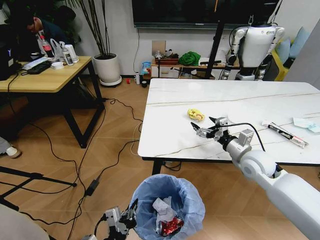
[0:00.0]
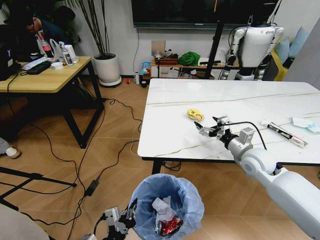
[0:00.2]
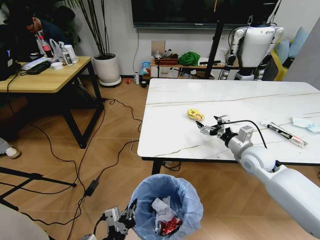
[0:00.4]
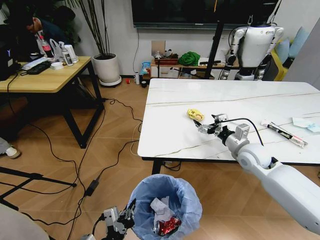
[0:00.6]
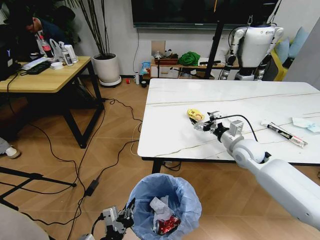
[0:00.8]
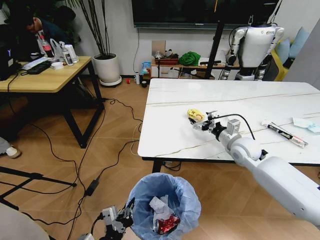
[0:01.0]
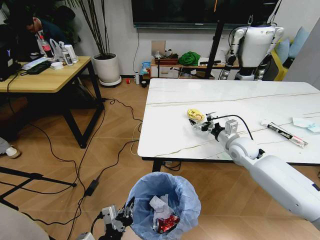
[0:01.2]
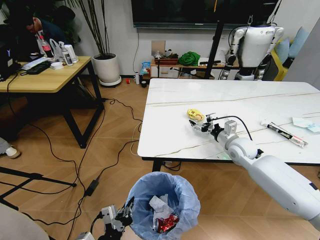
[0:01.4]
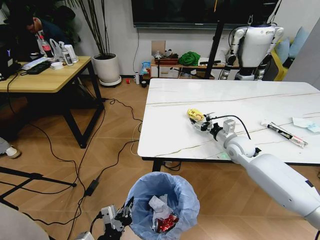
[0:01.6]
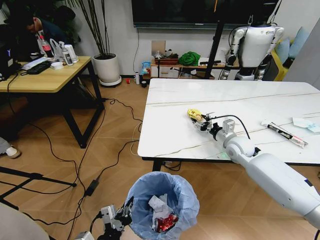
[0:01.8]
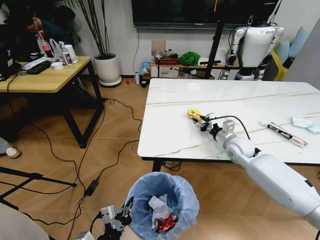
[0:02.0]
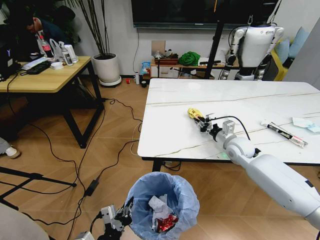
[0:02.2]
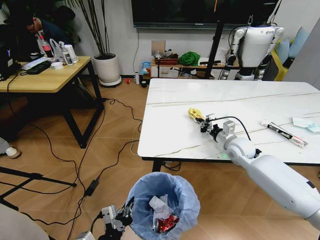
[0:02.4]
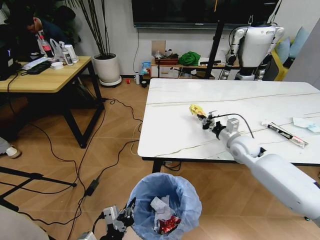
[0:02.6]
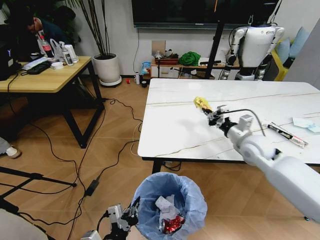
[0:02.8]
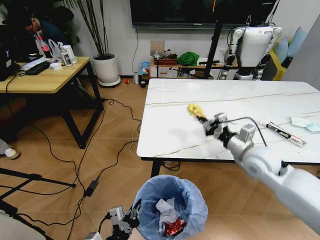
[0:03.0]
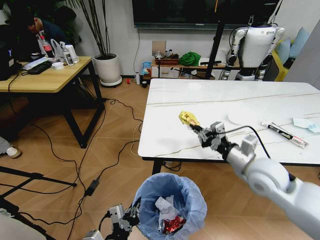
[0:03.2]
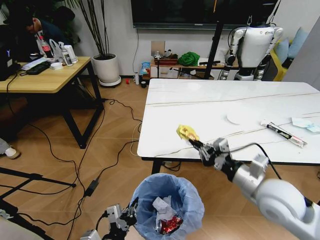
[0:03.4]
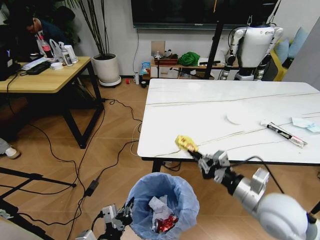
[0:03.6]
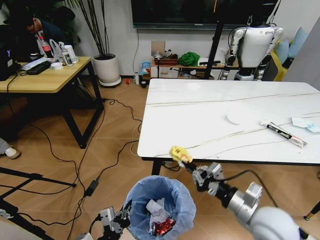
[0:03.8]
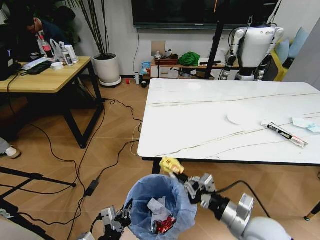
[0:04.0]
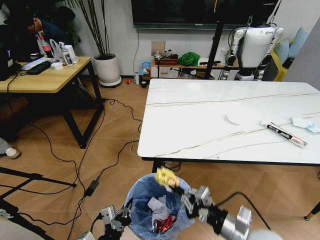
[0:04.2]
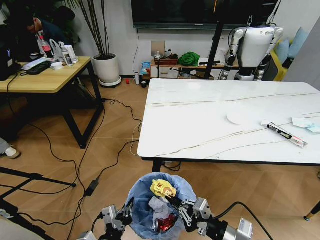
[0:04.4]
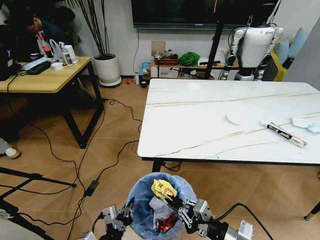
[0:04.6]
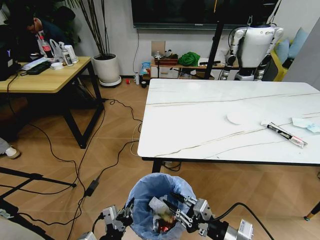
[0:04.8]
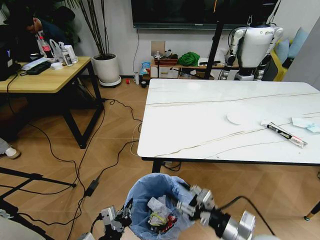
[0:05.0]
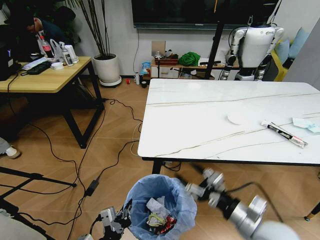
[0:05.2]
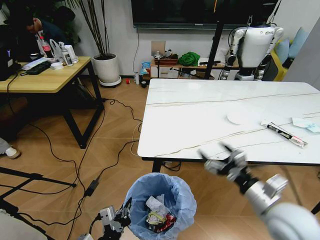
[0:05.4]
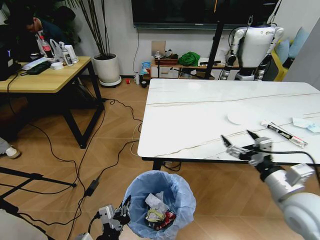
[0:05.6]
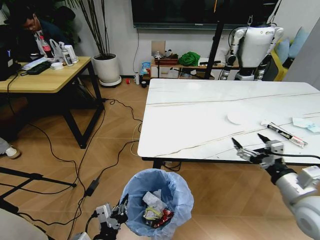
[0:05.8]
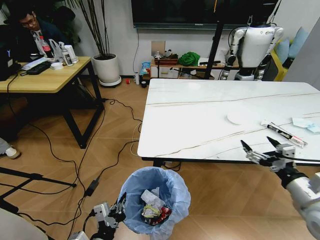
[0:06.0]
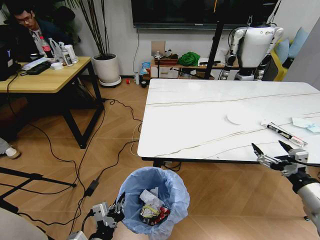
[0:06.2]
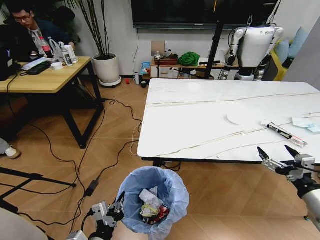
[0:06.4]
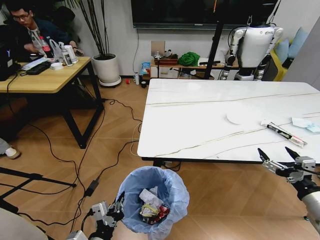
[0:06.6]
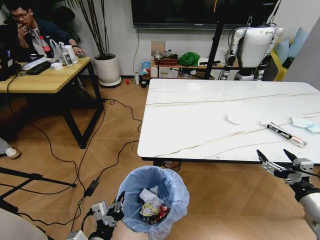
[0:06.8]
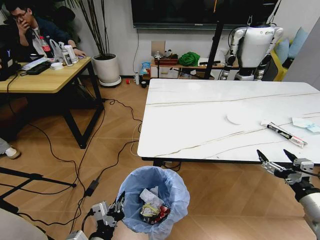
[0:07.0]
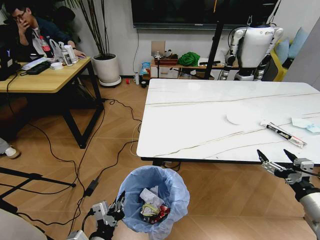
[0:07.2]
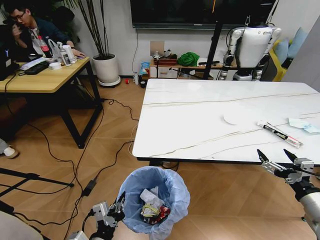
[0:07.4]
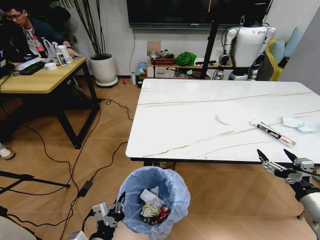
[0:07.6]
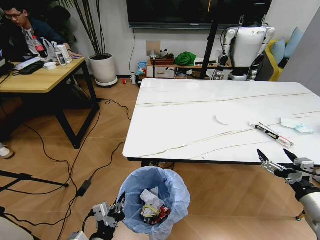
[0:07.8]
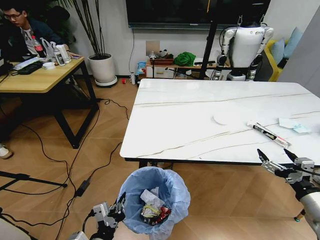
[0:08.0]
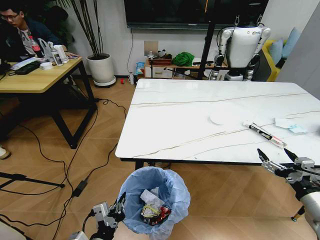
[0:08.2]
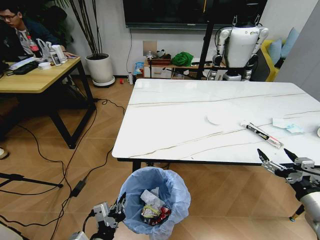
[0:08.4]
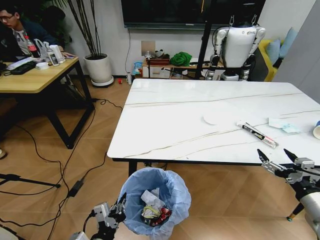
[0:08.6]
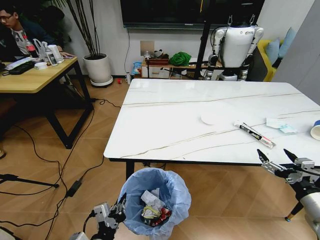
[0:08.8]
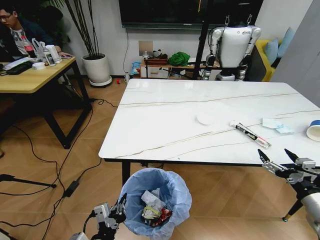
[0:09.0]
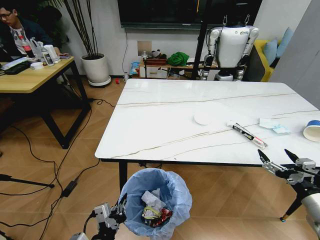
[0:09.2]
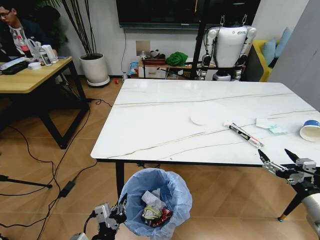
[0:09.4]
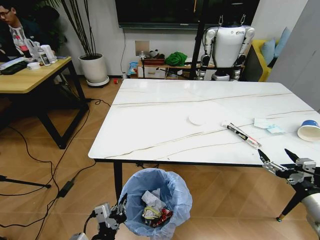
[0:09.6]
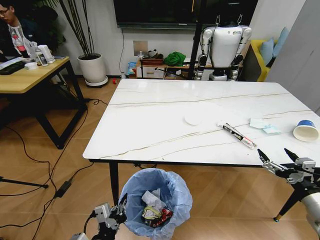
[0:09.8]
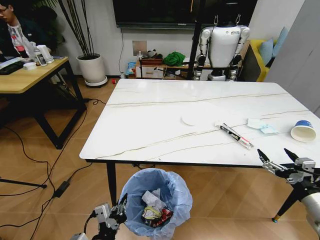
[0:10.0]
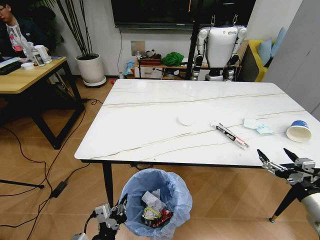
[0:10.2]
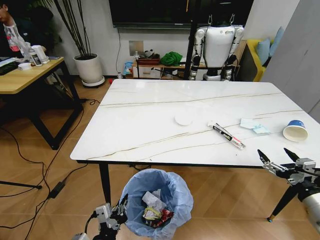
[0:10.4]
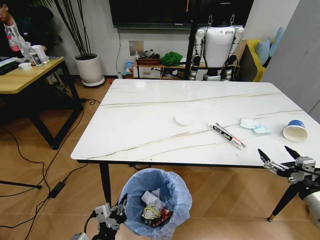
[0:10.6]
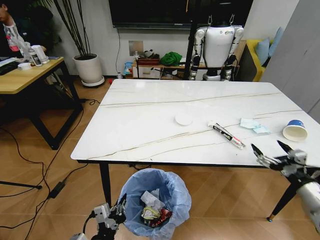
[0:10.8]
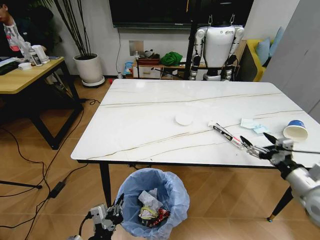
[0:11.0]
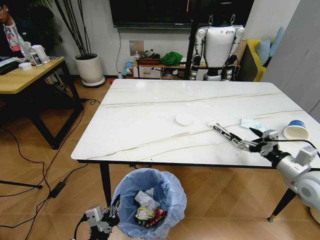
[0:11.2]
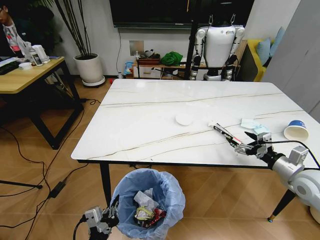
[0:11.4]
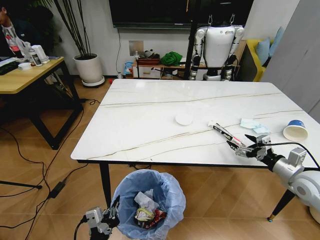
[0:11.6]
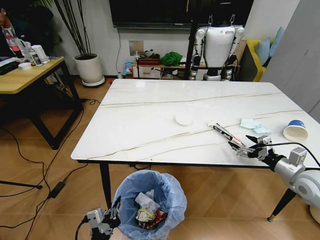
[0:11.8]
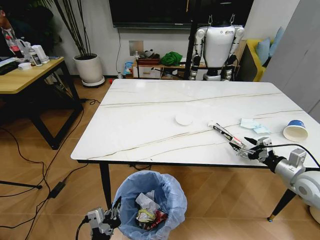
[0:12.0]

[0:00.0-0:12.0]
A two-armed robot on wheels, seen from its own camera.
Task of the whole recording: Pick up the trash bin and place the trash from the table into it.
0:00.0 to 0:01.6: The right gripper travels forward by roughly 10 cm.
0:01.6 to 0:03.0: The right gripper moves backward and upward, about 10 cm, and closes its fingers.
0:03.0 to 0:04.4: The right gripper heads backward, covering roughly 25 cm.
0:04.4 to 0:06.0: The right gripper travels to the right and upward by approximately 15 cm, and opens up.
0:06.0 to 0:07.6: The right gripper changes place by about 5 cm.
0:10.4 to 0:12.0: The right gripper travels forward by roughly 15 cm.

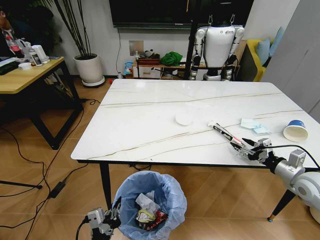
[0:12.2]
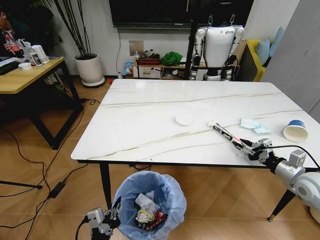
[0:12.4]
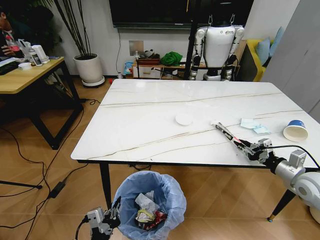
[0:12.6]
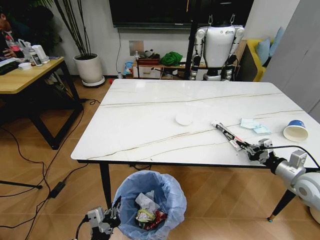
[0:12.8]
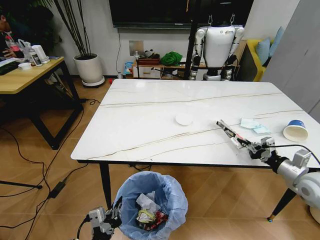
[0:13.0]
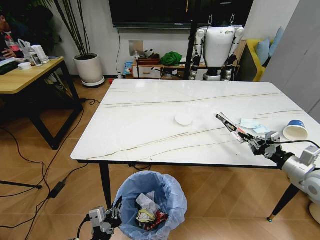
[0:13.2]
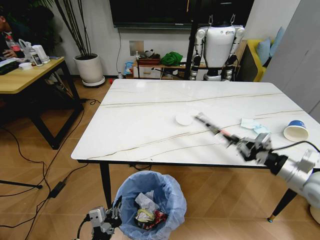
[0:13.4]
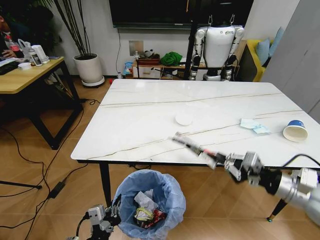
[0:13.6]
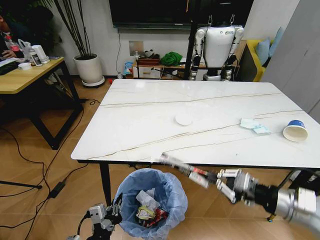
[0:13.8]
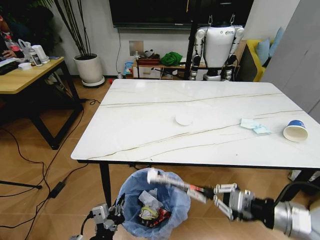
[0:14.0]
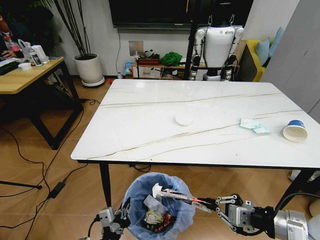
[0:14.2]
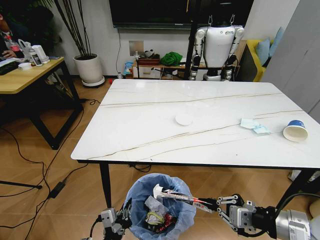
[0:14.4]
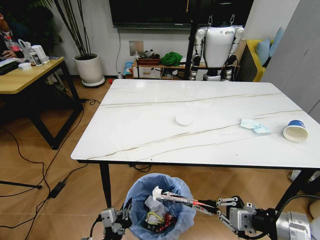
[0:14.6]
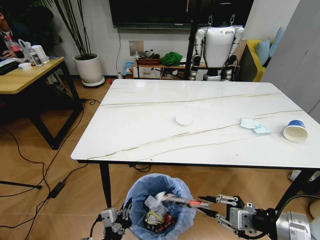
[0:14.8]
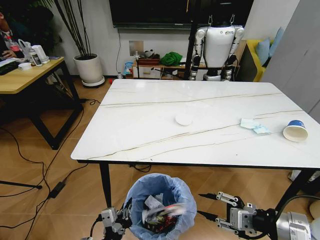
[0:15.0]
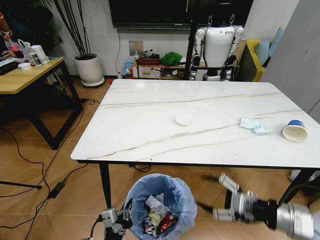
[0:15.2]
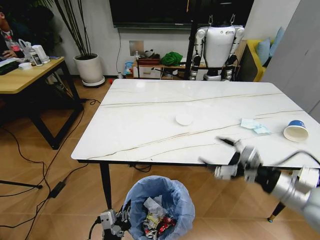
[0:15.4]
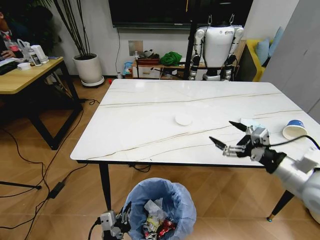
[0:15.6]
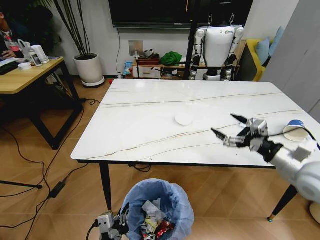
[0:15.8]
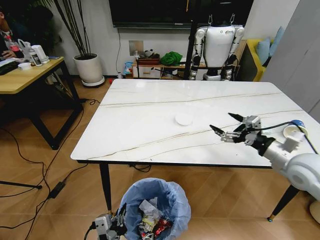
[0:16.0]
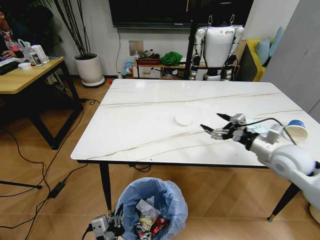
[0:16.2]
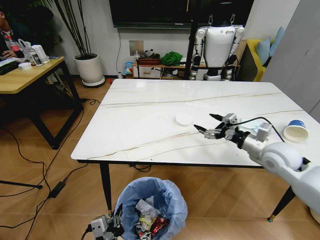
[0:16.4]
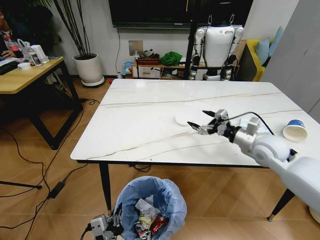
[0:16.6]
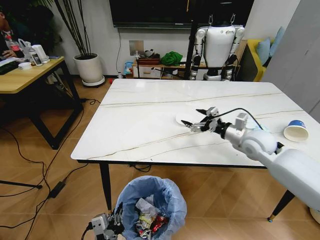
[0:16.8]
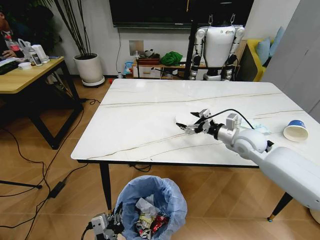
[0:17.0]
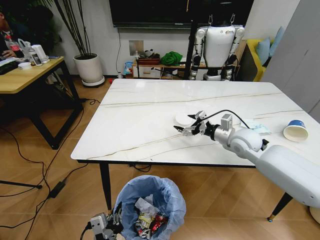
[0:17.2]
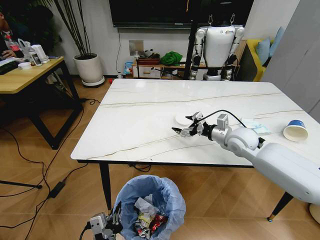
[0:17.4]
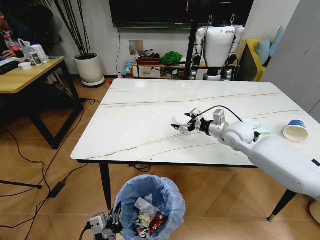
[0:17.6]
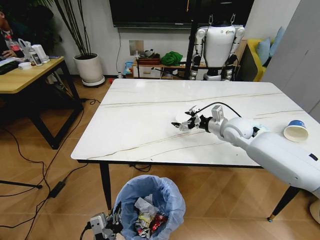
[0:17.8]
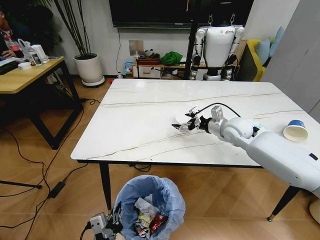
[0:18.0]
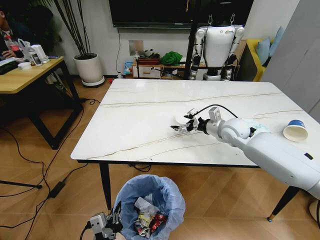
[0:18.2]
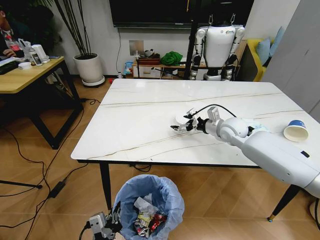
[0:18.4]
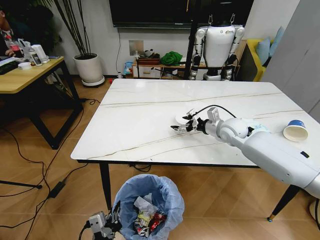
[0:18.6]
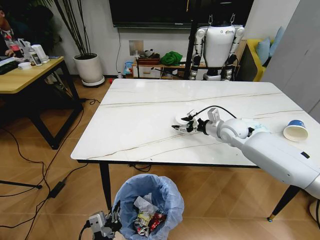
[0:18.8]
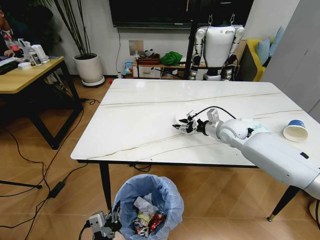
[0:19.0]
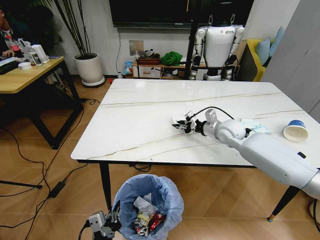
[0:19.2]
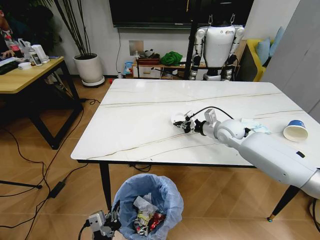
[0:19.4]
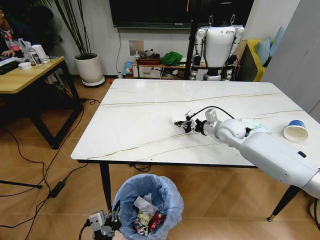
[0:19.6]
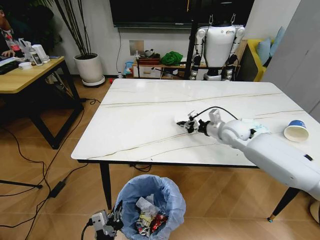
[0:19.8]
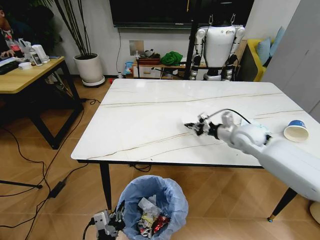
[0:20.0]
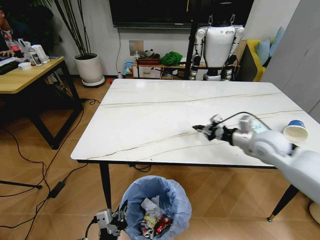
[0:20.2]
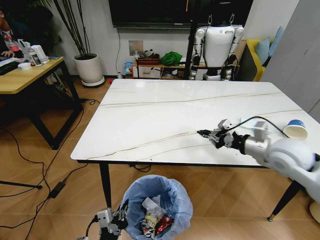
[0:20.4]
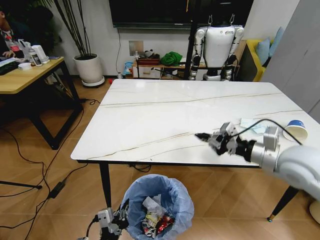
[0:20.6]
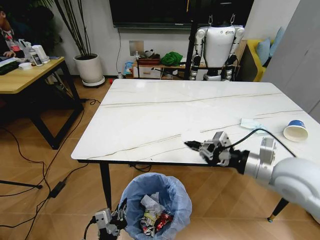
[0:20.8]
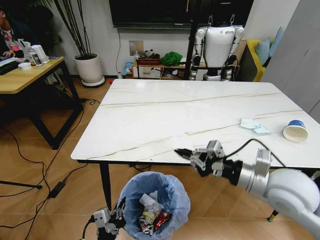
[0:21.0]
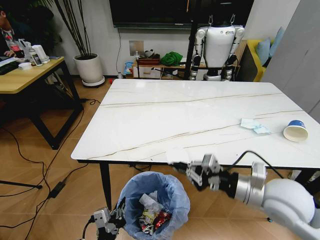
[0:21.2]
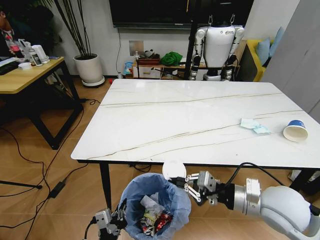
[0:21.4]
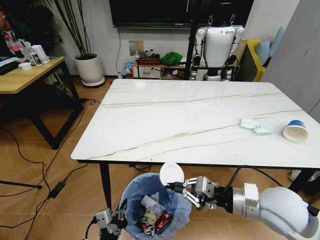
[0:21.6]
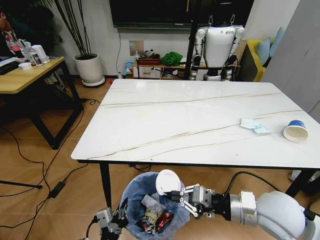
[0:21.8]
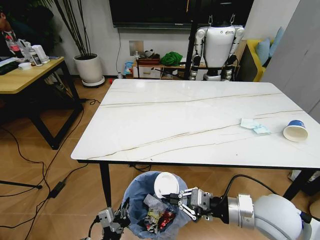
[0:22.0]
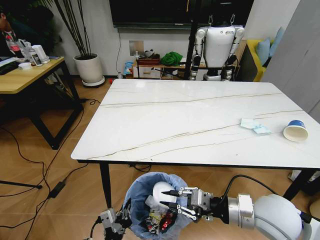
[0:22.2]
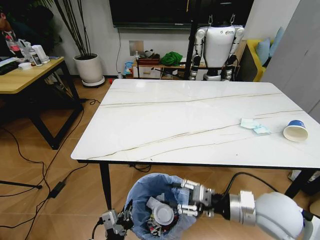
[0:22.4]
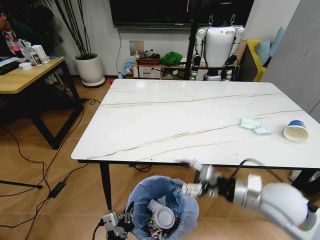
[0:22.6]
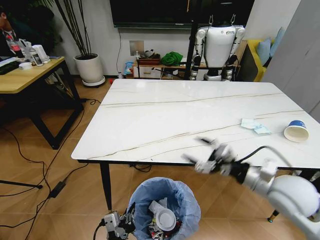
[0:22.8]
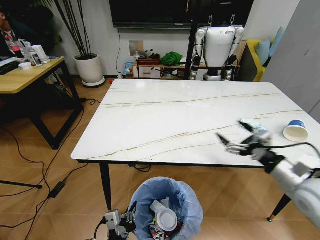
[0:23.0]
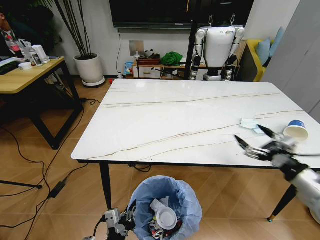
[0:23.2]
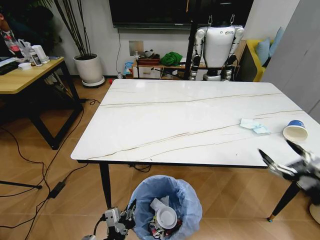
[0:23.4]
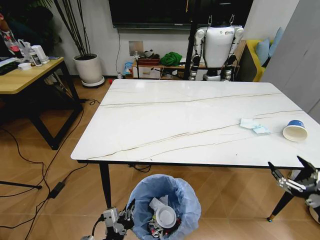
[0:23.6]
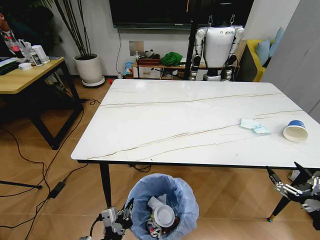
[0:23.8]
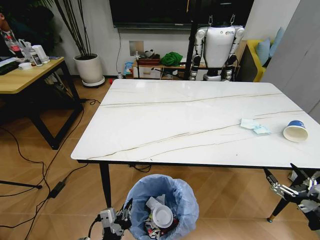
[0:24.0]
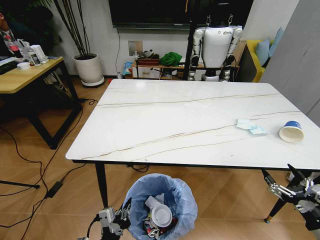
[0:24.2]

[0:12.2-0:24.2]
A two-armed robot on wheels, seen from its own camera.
Task of the whole recording: Pick up the trash bin and place the trash from the table into it.
0:12.2 to 0:13.8: The right gripper goes approximately 15 cm to the left, backward and upward, and closes up.
0:13.8 to 0:15.2: The right gripper opens up.
0:15.2 to 0:16.6: The right gripper travels forward by roughly 25 cm.
0:16.6 to 0:18.2: The right gripper moves forward and to the left, approximately 10 cm.
0:18.2 to 0:19.8: The right gripper closes.
0:19.8 to 0:21.2: The right gripper is displaced backward by about 25 cm.
0:21.2 to 0:22.6: The right gripper opens its fingers.
0:22.6 to 0:24.2: The right gripper travels to the right, backward and downward by about 25 cm, and opens up.
